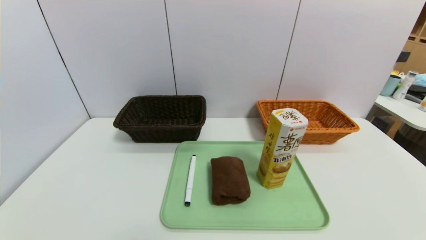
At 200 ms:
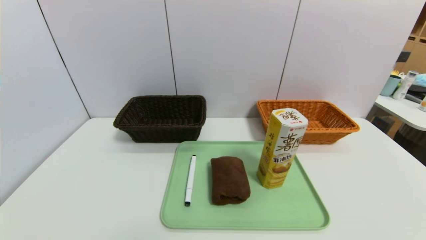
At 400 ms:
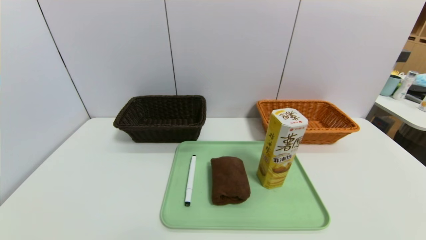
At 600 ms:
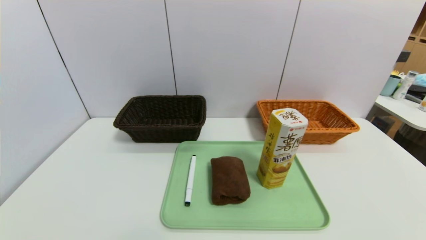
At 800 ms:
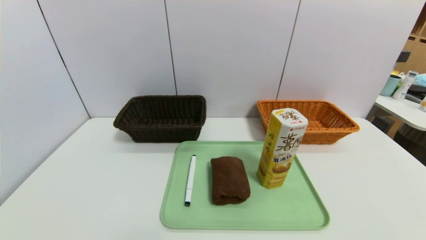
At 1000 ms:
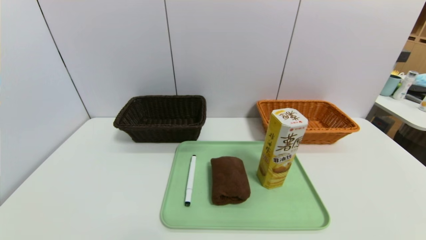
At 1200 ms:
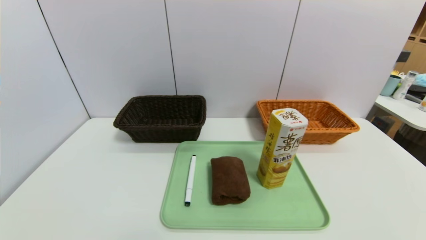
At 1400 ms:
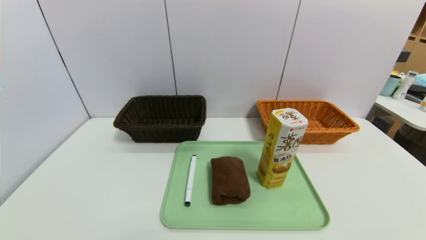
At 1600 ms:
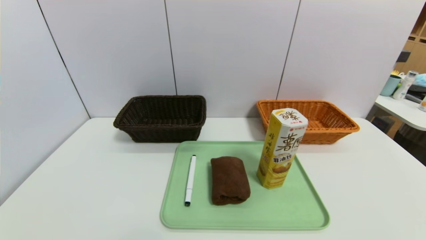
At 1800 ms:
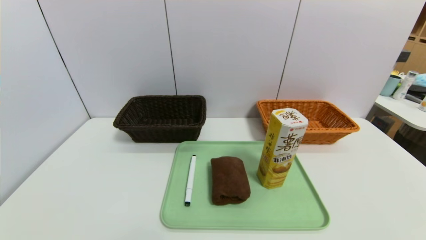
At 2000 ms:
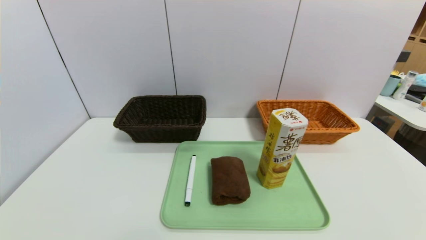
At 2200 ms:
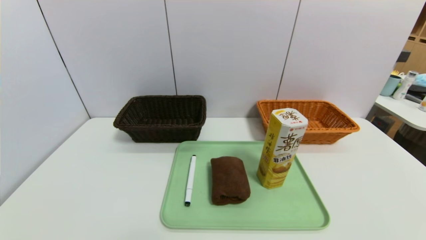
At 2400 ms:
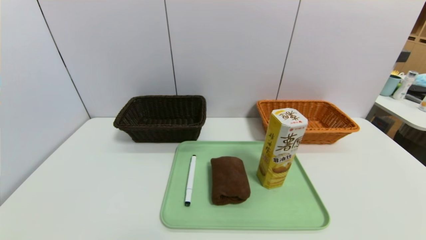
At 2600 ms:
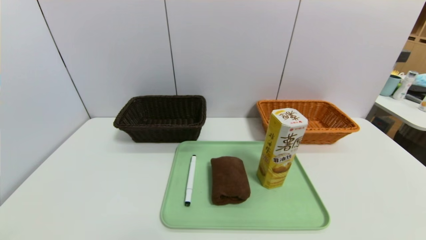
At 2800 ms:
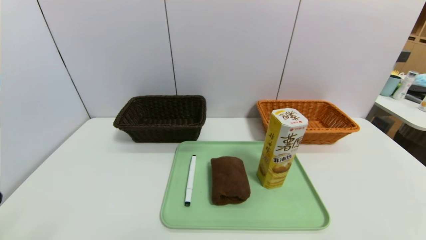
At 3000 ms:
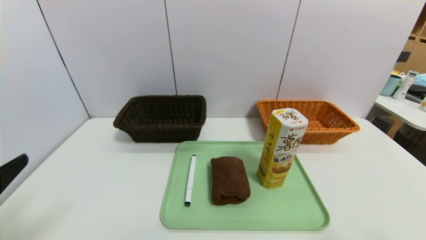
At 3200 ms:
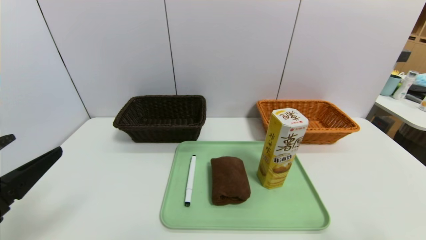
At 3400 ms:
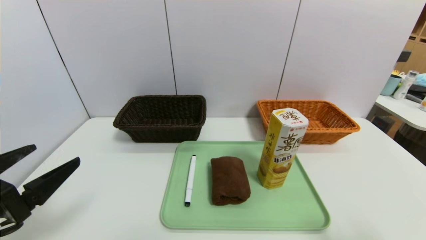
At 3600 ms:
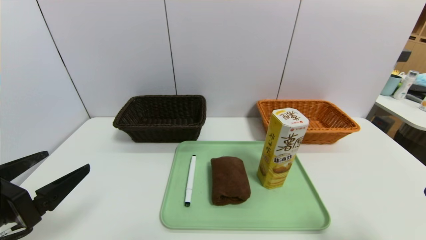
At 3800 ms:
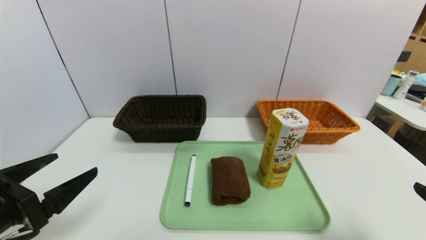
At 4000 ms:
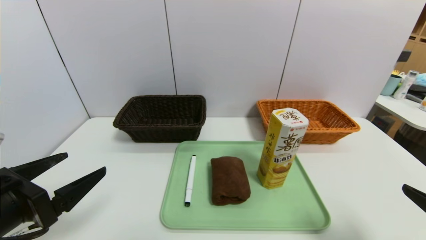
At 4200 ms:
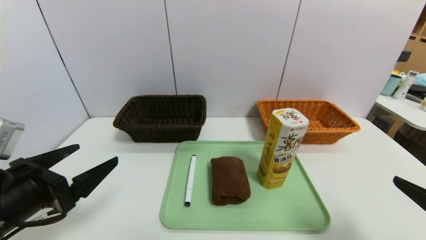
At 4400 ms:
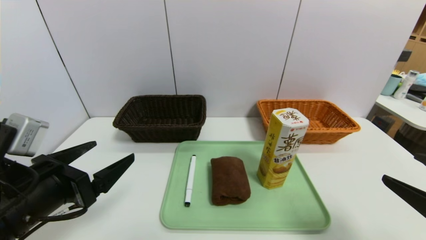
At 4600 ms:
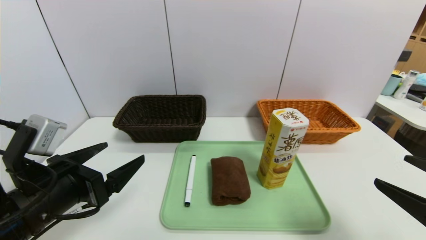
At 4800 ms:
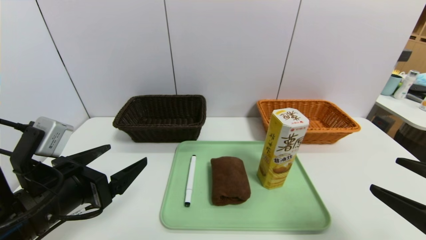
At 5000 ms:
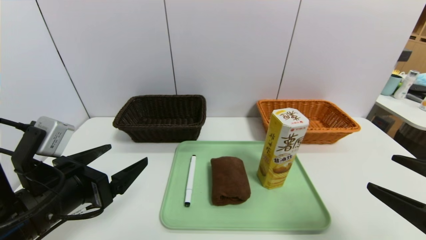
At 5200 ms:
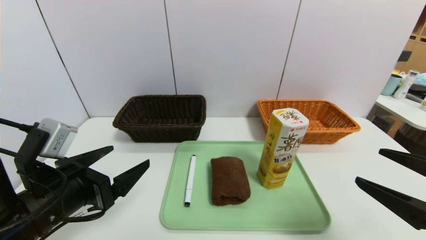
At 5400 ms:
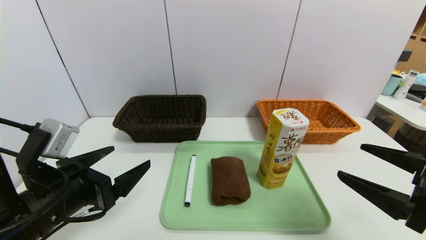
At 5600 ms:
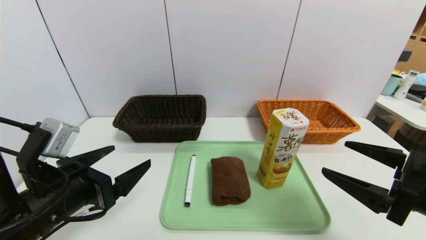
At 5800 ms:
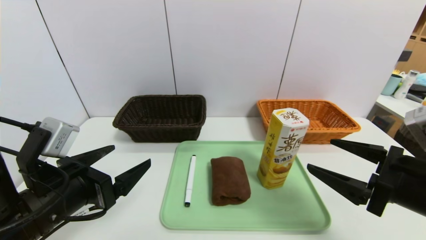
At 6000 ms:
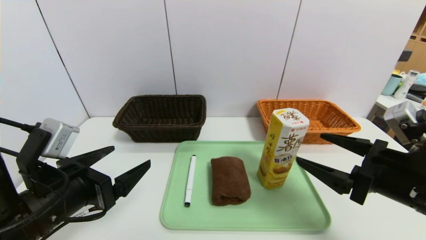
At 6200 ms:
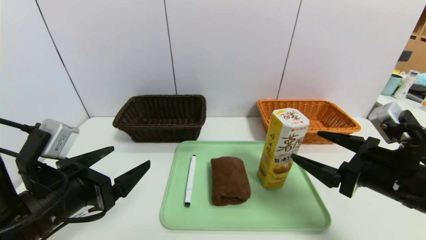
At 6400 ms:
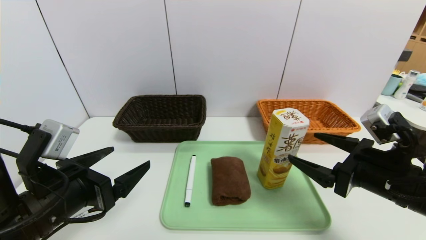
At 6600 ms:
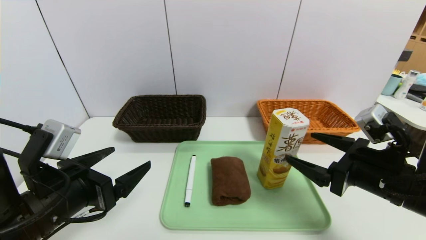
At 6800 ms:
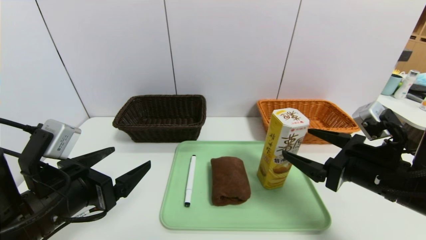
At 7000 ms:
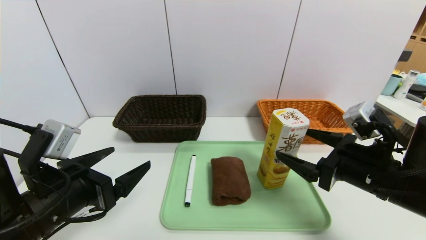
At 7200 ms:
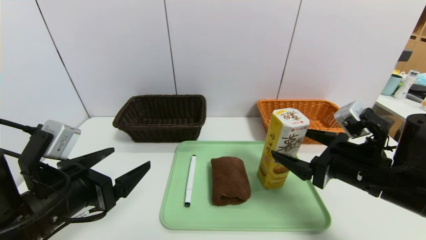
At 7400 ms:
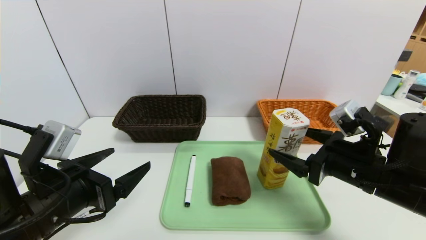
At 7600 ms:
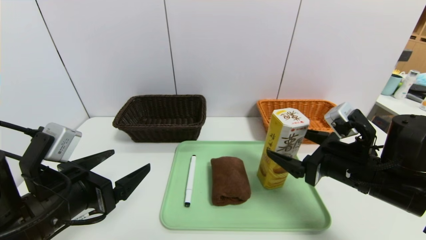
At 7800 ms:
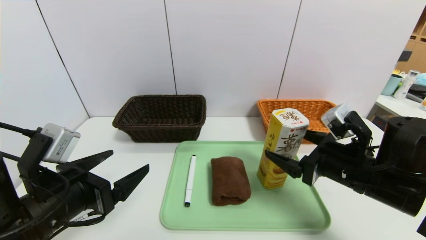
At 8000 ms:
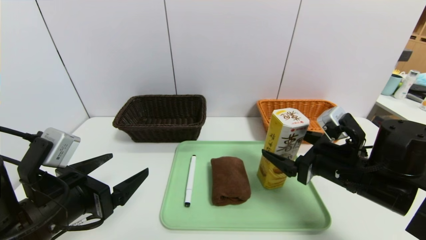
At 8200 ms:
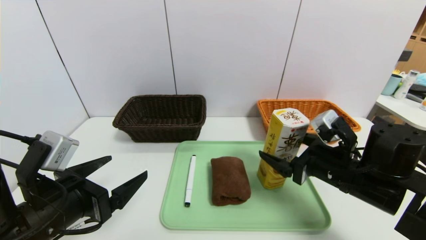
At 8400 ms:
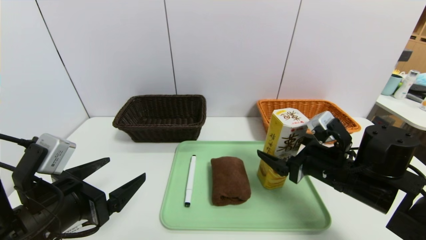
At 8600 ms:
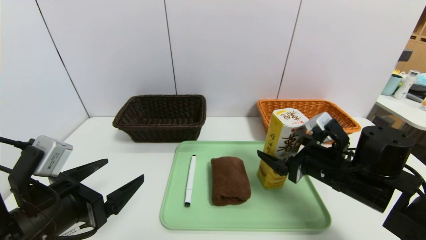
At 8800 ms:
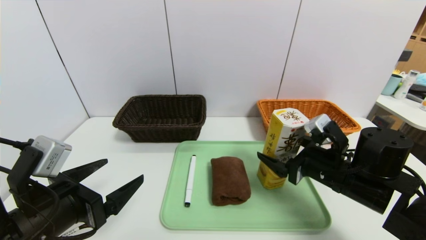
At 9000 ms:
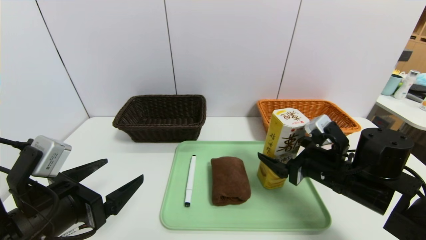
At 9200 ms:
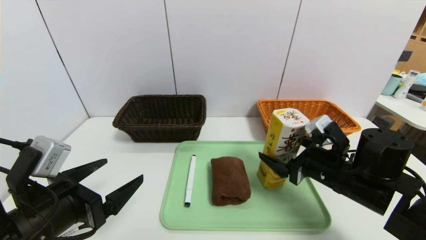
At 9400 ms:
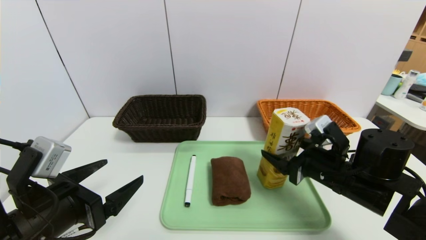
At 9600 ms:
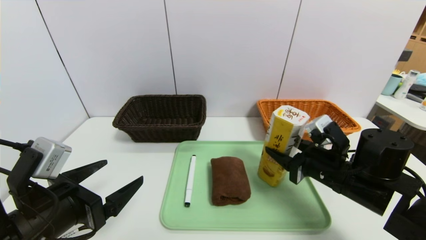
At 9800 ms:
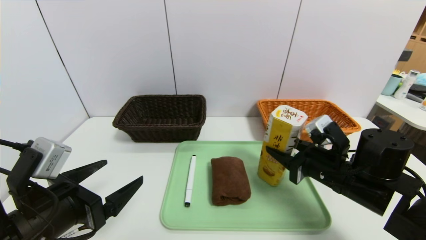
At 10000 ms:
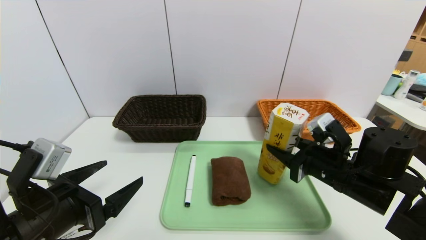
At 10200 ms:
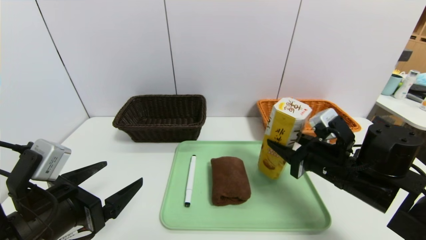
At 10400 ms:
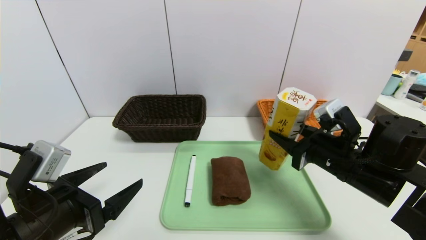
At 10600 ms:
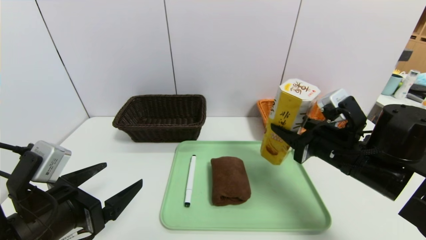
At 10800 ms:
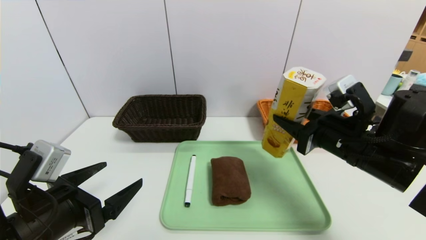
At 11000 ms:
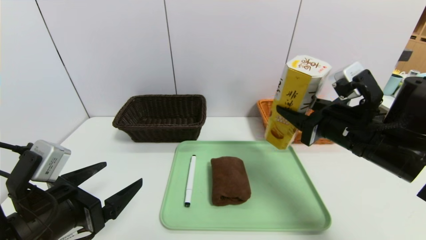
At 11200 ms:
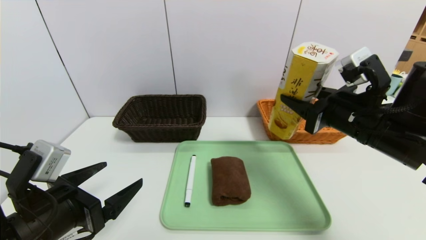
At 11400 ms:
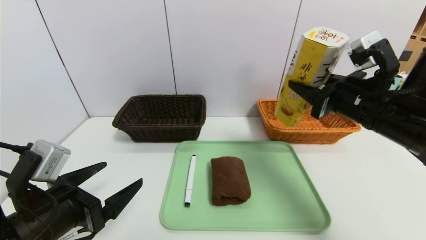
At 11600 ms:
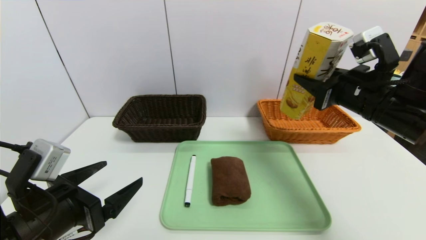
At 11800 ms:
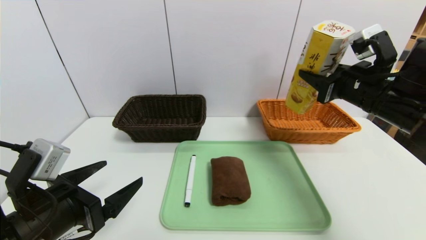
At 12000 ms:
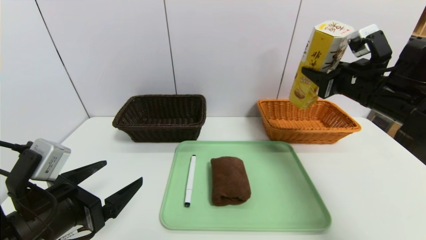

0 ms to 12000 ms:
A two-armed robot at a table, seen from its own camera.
Task of the whole recording: place the food in the right basket with the right gripper, and place the non food items in the left basket with the left gripper.
0 ms to 1600 ms: Neither gripper changes place.
1600 ms to 3000 ms: The left gripper is displaced upward and forward by roughly 15 cm.
3000 ms to 4400 ms: The left gripper is displaced forward and to the right by roughly 10 cm. The right gripper travels forward by roughly 5 cm.
4400 ms to 6000 ms: The right gripper moves forward and to the left, some 10 cm.
6000 ms to 7600 ms: The right gripper ends up some 5 cm from where it was.
7600 ms to 9000 ms: The grippers stay close to where they were, moving slightly.
9000 ms to 10400 ms: The right gripper closes.
10400 ms to 12000 ms: The right gripper is displaced upward, forward and to the right by about 15 cm.

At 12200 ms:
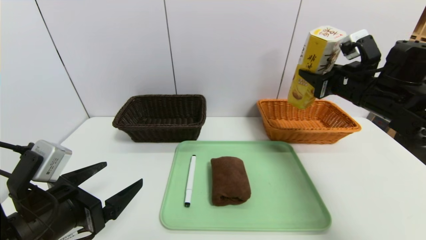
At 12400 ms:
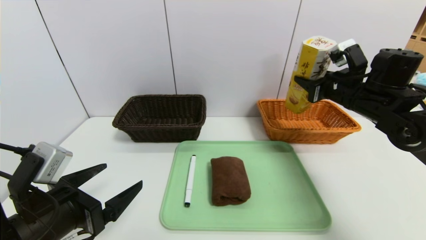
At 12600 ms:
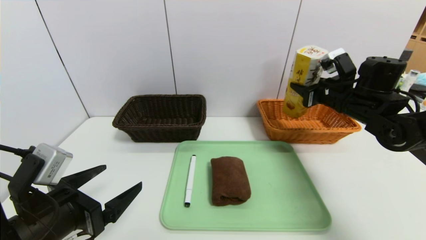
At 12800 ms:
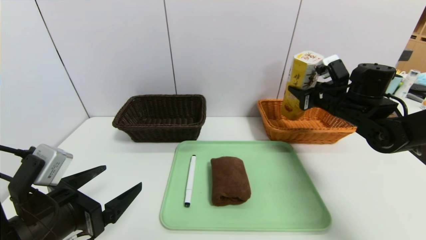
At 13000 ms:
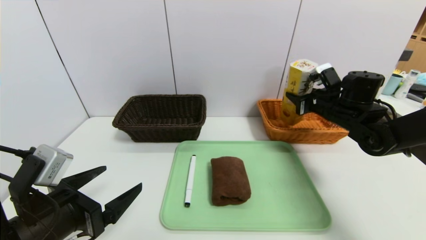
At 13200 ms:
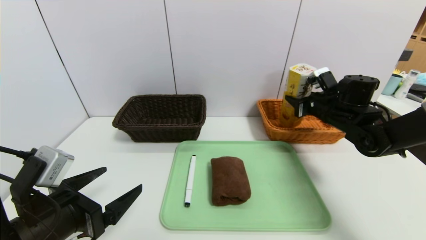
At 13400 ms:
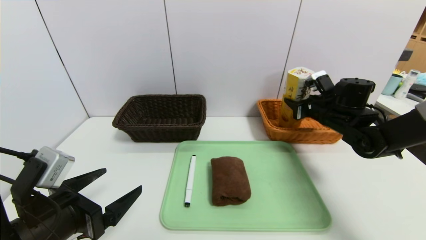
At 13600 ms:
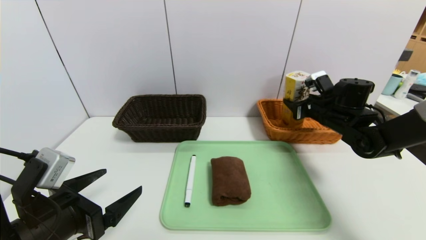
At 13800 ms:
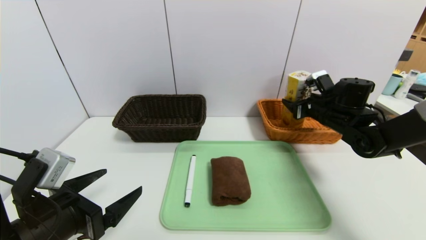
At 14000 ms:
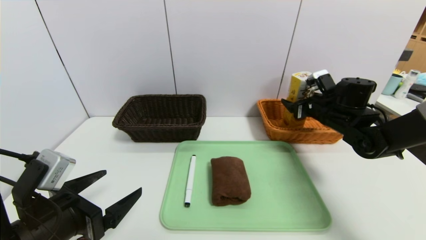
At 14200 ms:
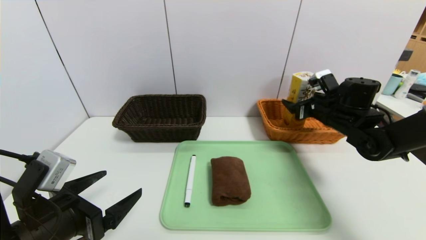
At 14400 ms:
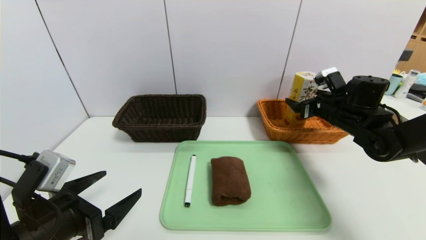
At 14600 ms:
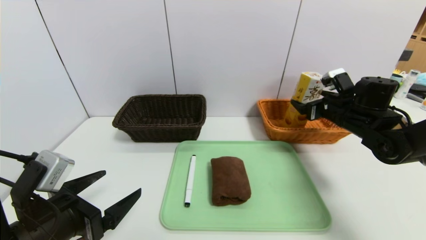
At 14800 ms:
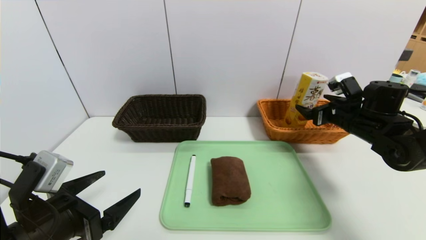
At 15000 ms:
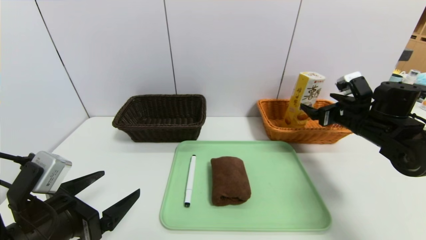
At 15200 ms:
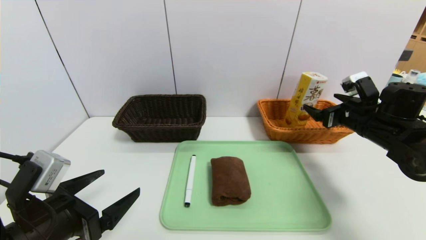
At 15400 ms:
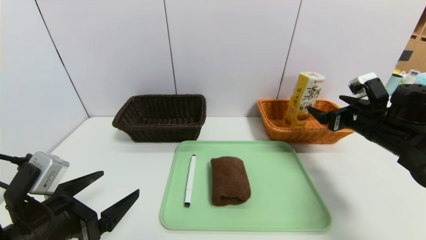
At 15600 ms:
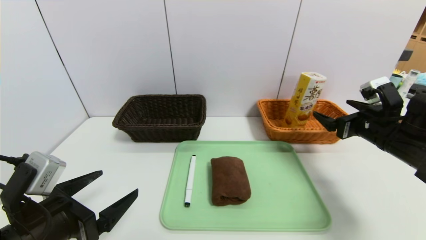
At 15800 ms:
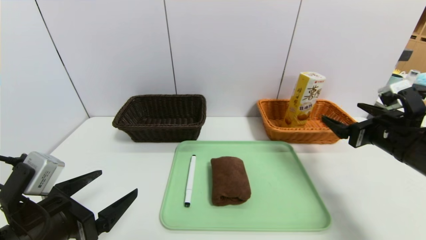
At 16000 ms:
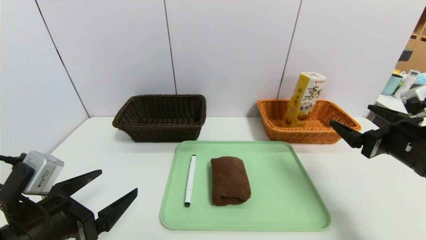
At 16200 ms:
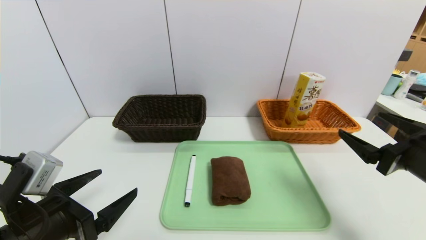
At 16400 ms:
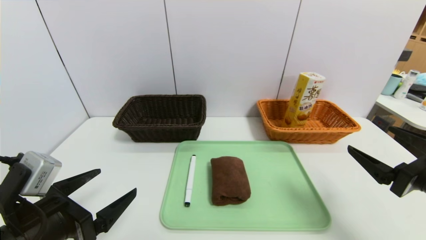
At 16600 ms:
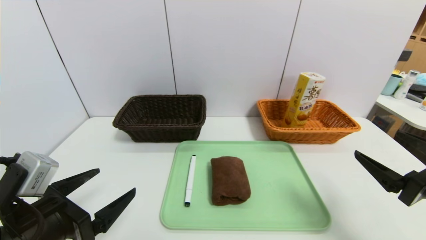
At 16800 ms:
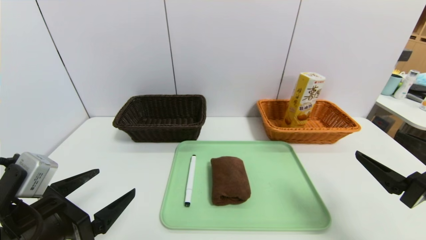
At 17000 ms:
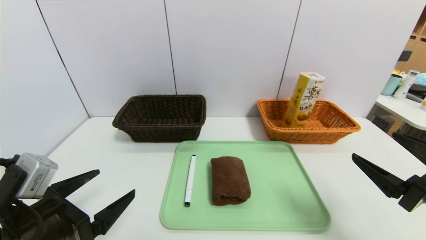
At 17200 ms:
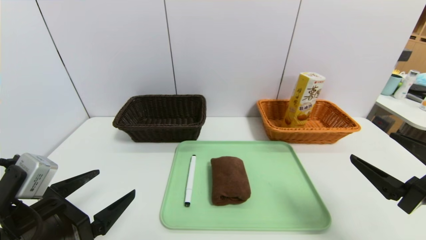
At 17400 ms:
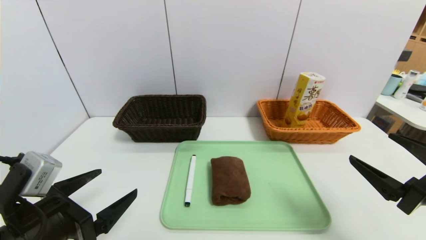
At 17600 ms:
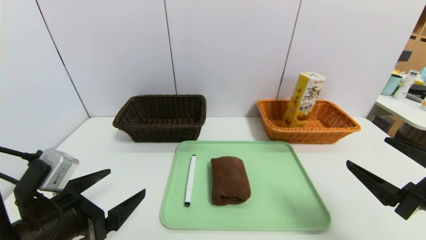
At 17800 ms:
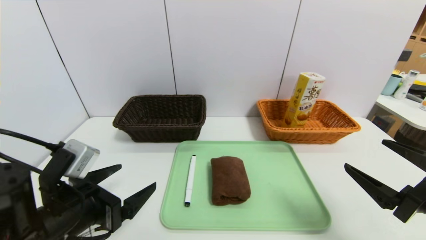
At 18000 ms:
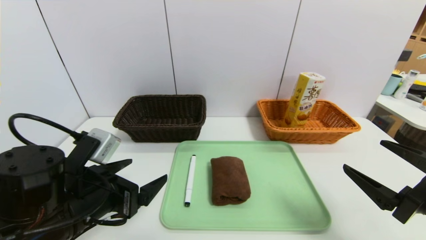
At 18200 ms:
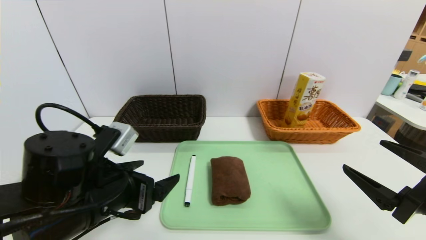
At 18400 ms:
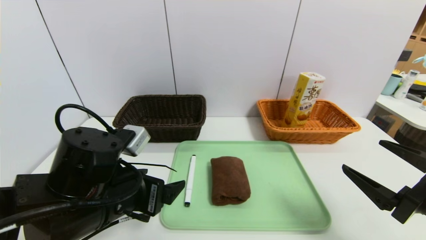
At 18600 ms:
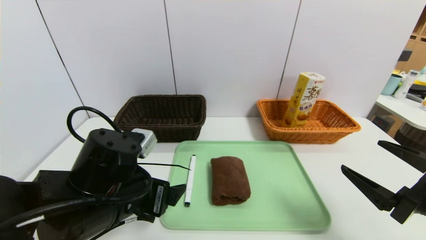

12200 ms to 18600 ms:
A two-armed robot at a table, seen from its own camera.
Task of the whole recording: place the food in the right basket with the right gripper, and place the non food items in the left basket with the left gripper.
Step, 12200 ms to 14200 ms: Grasp the potato chips and put it in the right basket.
12200 ms to 13800 ms: The right gripper heads downward and forward, covering approximately 10 cm, and opens its fingers.
13800 ms to 15400 ms: The right gripper moves backward, roughly 10 cm, and opens.
15400 ms to 17000 ms: The right gripper goes approximately 20 cm backward.
17000 ms to 18600 ms: The left gripper goes approximately 10 cm to the right and forward.
